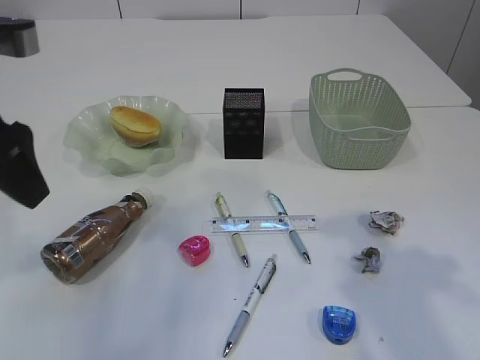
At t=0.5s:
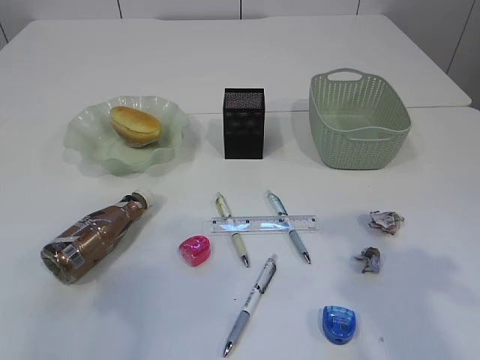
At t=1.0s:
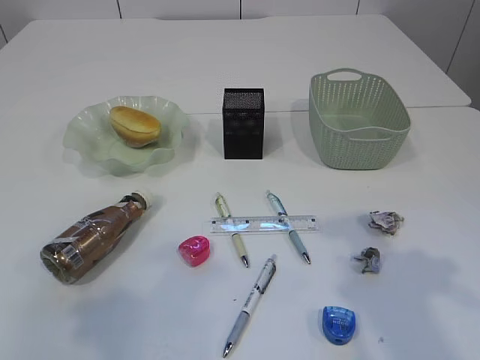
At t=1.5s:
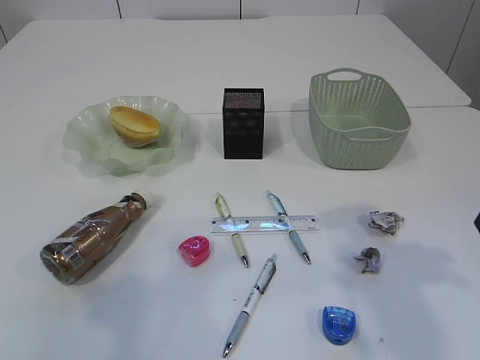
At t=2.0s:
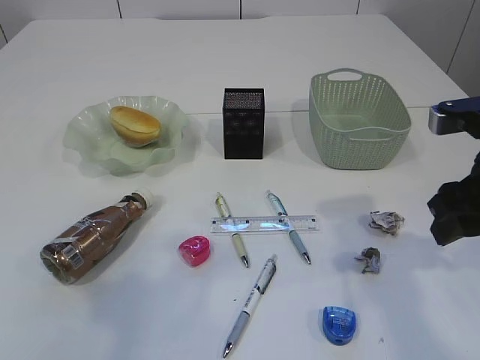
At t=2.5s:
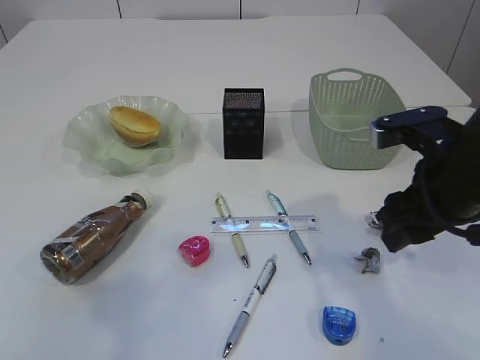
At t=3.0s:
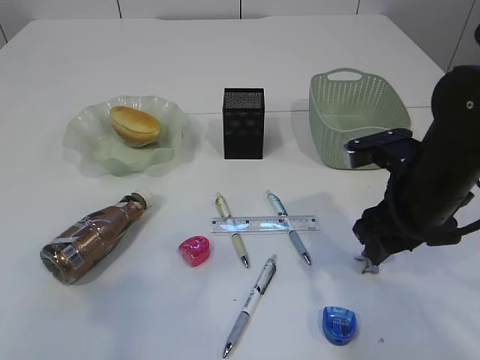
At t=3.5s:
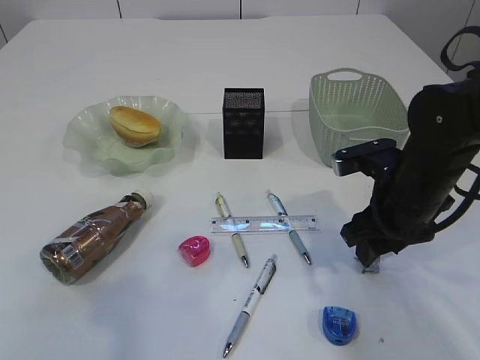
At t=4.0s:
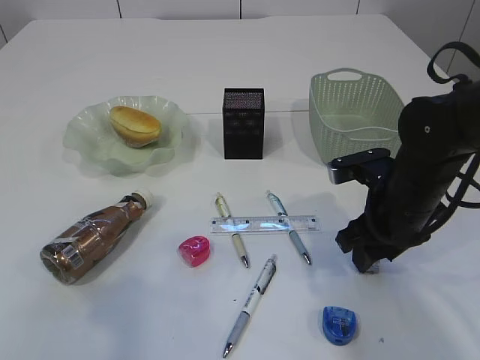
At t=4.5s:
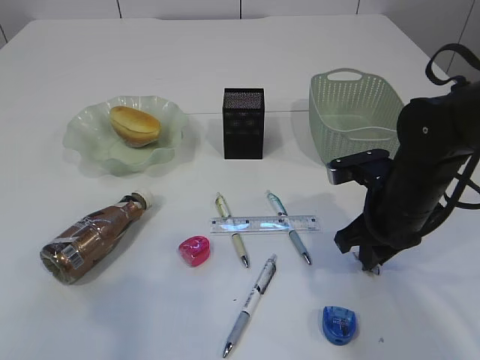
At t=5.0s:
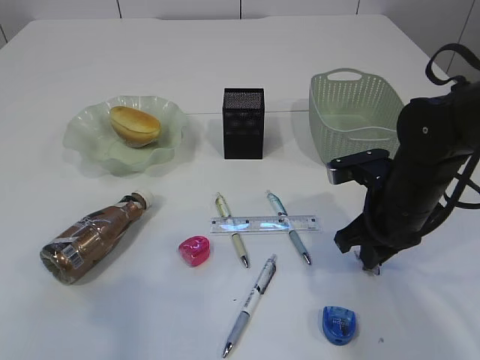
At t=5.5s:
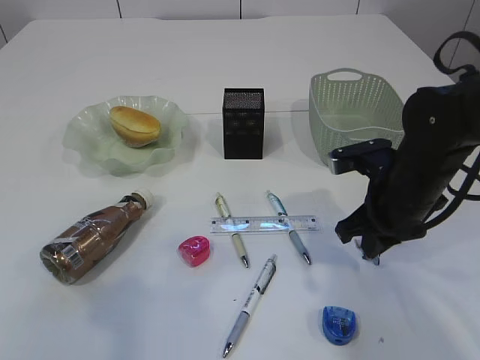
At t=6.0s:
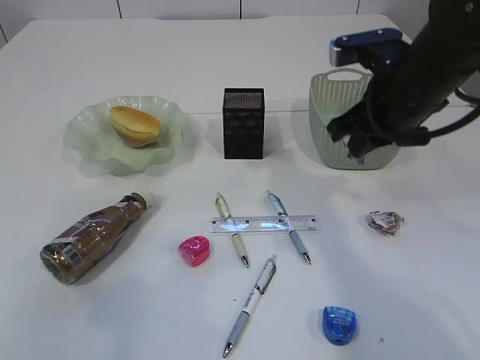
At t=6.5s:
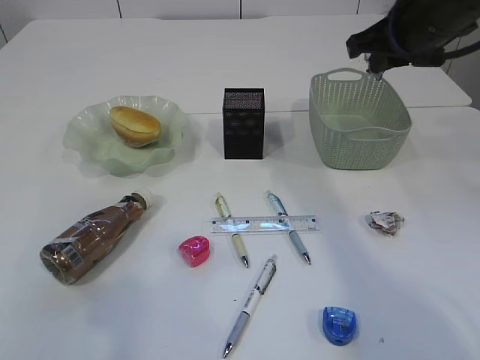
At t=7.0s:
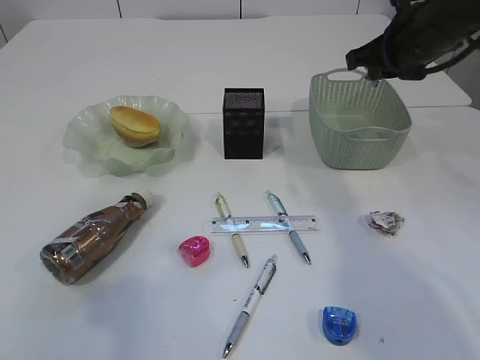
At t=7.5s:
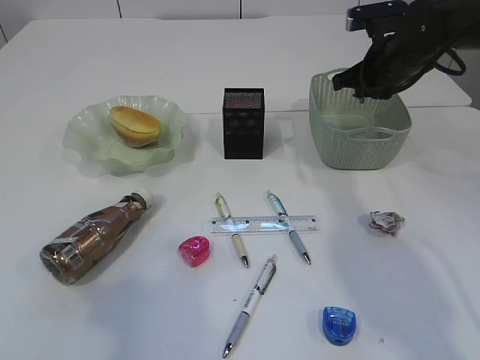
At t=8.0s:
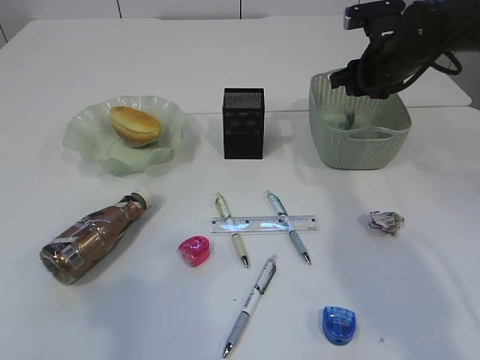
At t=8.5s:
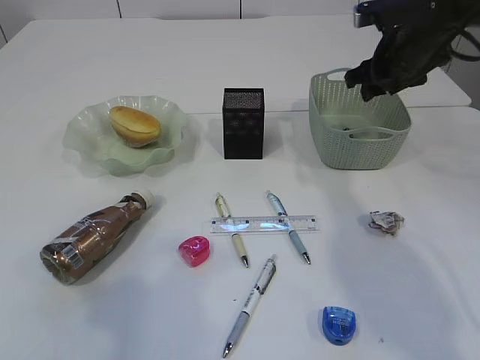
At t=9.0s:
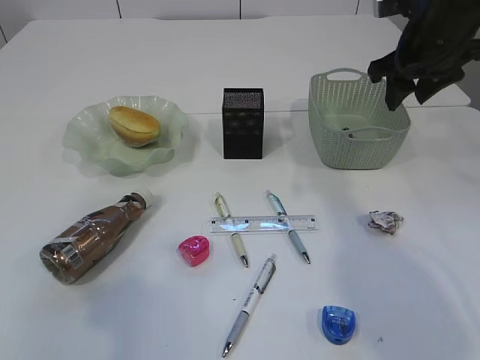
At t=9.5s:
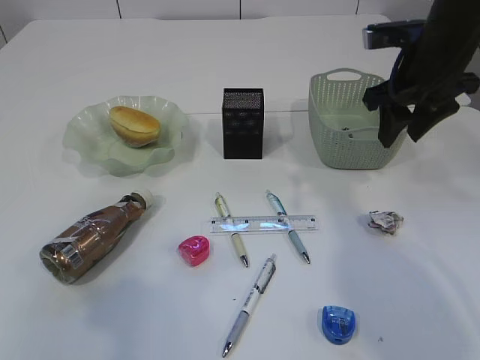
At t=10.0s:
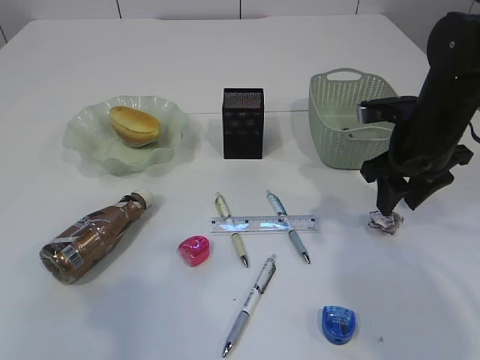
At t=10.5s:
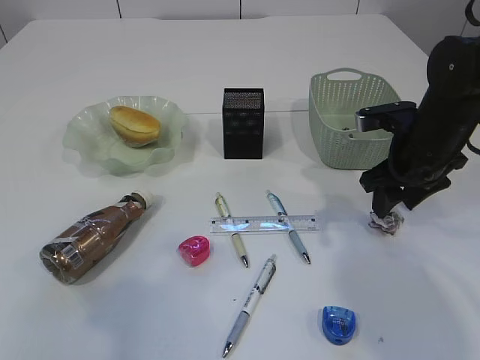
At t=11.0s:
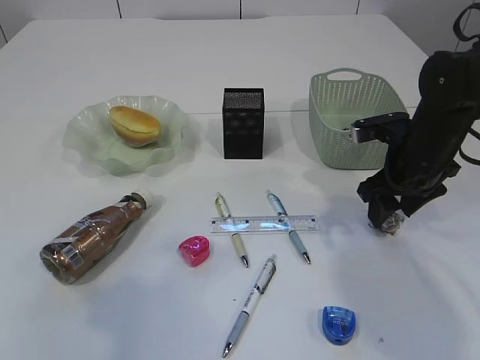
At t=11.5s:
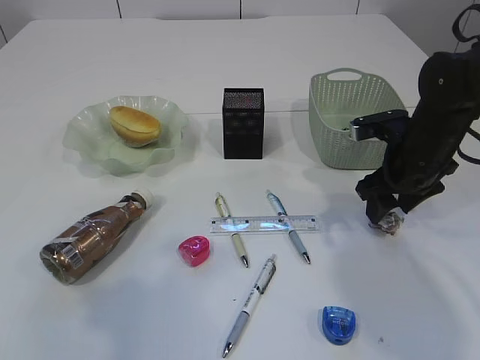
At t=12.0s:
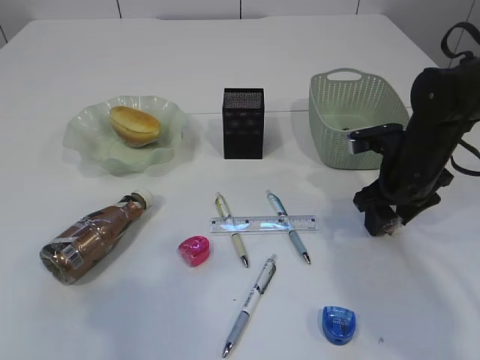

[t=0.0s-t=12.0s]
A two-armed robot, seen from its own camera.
Step, t=0.0s to t=5.5s: Pick up the waste paper.
Step, t=6.0s to t=9.0s: Place the waste paper in the basket.
t=0.0s to t=2.0s: The right gripper goes roughly 10 cm downward and forward; the left gripper travels backward by about 15 cm.
t=2.0s to t=4.0s: The right gripper travels downward, forward and to the left by approximately 15 cm.
t=4.0s to t=6.0s: The right gripper shifts about 10 cm upward, and closes.
t=6.0s to t=8.0s: The right gripper heads forward and to the right, covering about 15 cm, and opens up.
t=8.0s to t=10.0s: The right gripper is displaced backward by about 10 cm.
t=10.0s to t=12.0s: The right gripper travels downward by some 5 cm.

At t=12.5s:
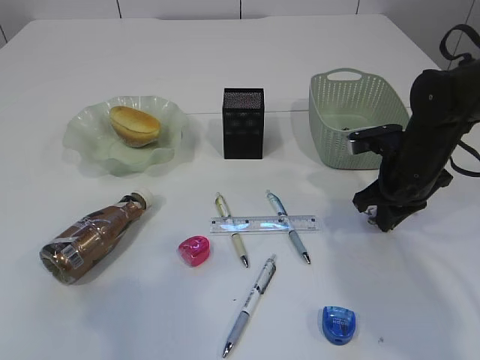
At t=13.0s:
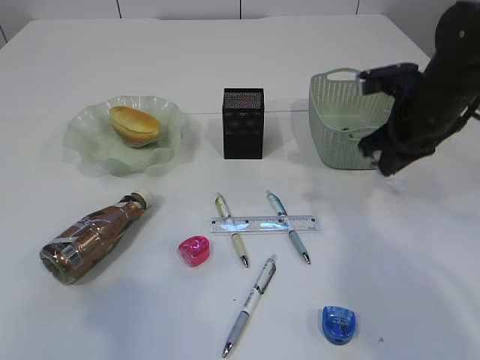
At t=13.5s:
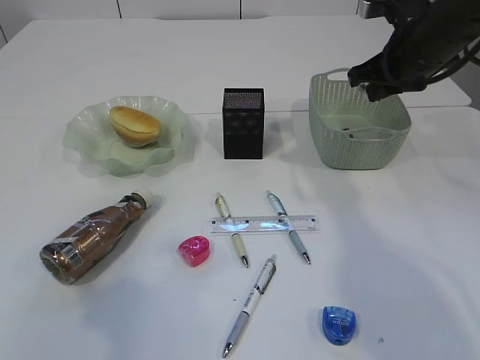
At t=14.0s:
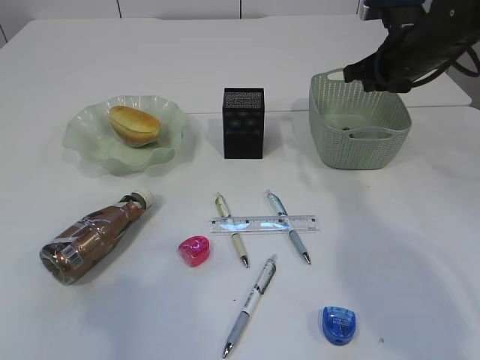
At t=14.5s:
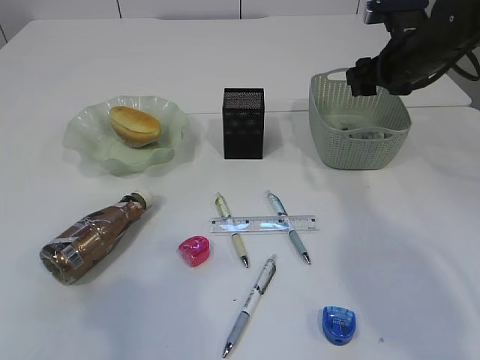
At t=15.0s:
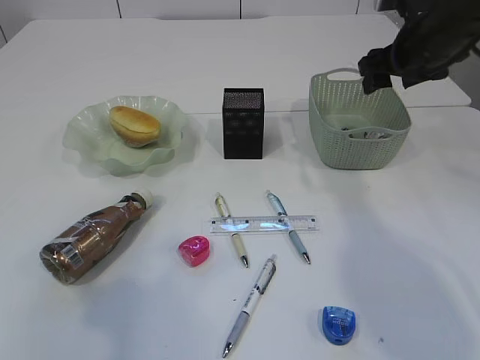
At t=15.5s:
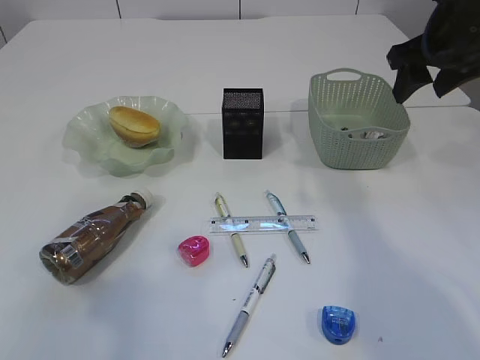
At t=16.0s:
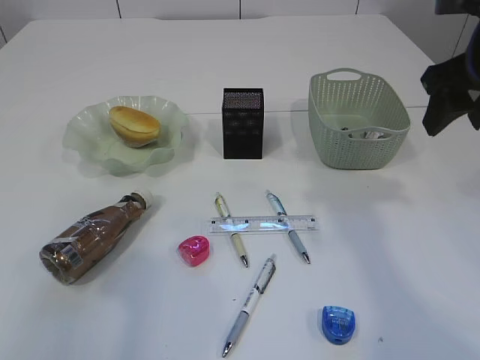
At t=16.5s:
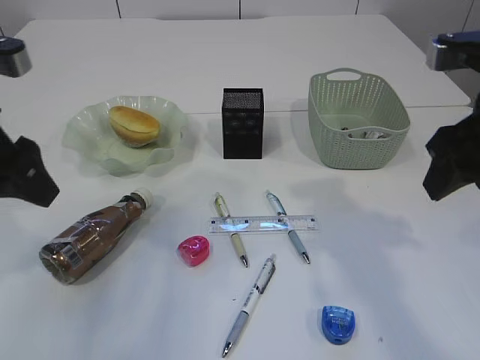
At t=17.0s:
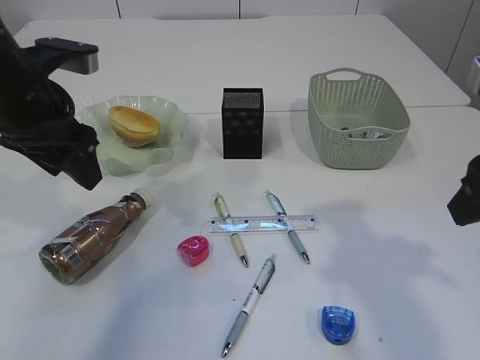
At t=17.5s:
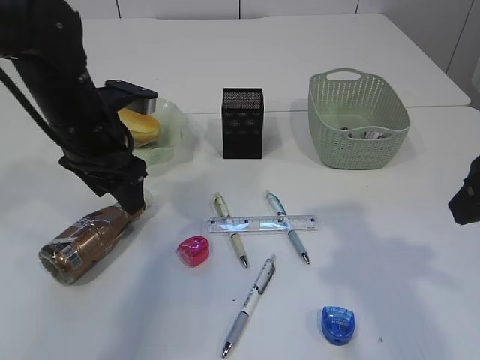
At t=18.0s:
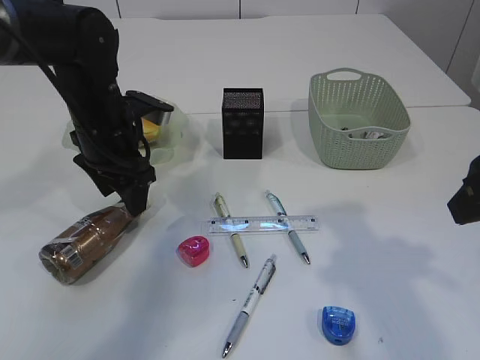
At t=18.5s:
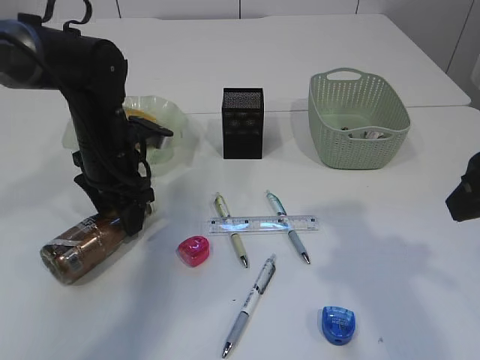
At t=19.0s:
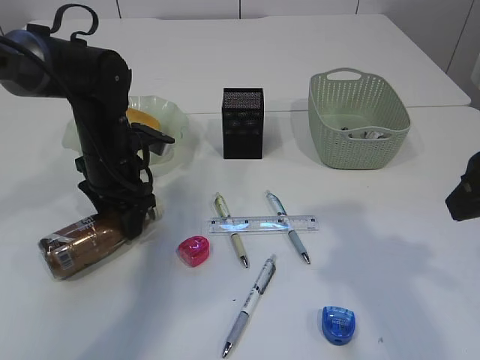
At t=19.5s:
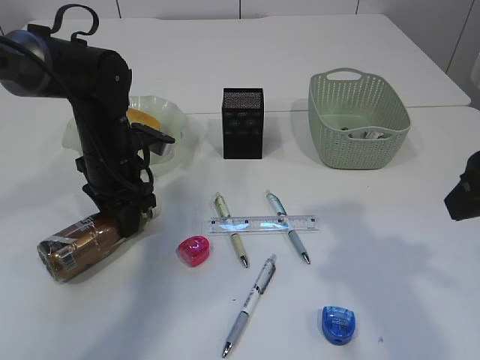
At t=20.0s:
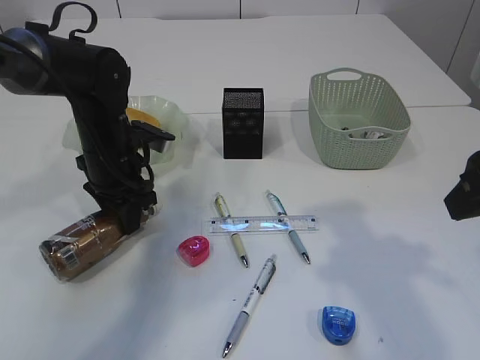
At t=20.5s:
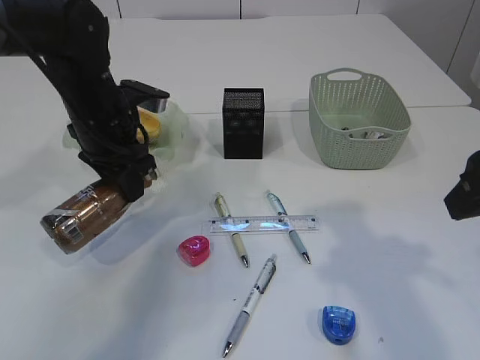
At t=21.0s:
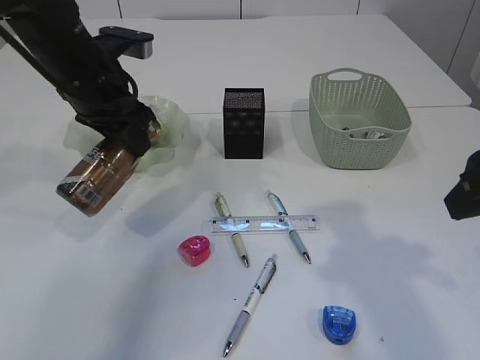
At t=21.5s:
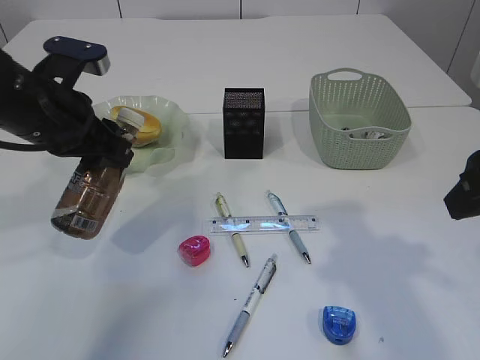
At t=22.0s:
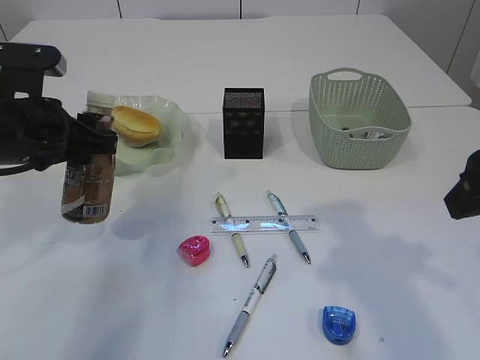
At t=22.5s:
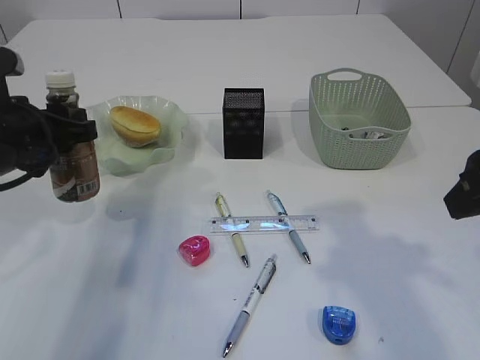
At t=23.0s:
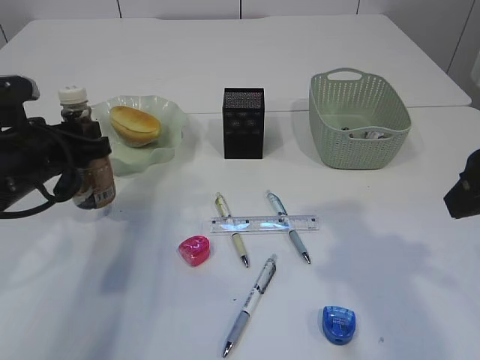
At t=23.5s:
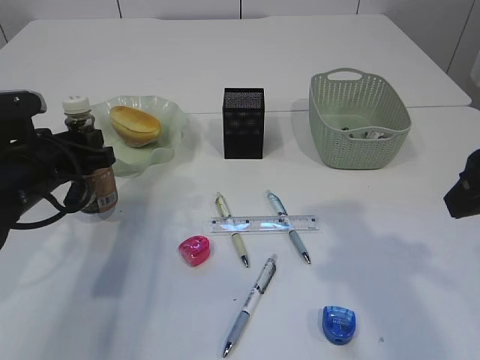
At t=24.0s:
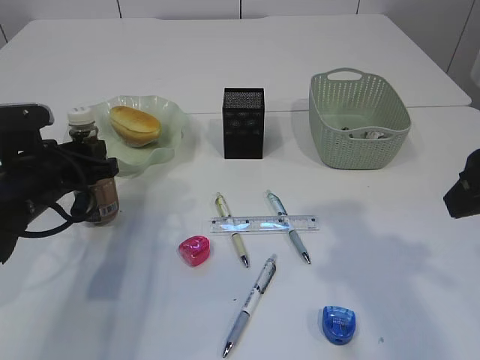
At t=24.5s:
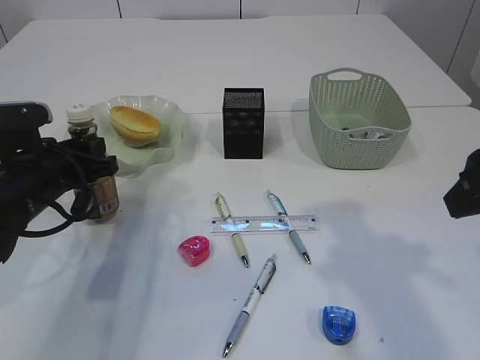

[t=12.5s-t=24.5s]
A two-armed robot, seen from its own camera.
Step, t=13.5s to t=15.0s: Place the waste paper in the basket.
Step, t=15.5s to t=20.5s: Pick up the bottle with the left arm.
t=12.5s to t=14.5s: The right gripper moves upward and forward, some 15 cm, and opens up.
t=14.5s to t=16.5s: The right gripper heads backward, covering approximately 20 cm. Meanwhile the left gripper travels forward by some 15 cm.
t=16.5s to t=18.5s: The left gripper moves forward, downward and to the right, some 20 cm, while the right gripper changes place by about 5 cm.
t=18.5s to t=20.5s: The left gripper moves upward, approximately 5 cm, and closes its fingers.
t=20.5s to t=22.5s: The left gripper shifts some 10 cm backward and to the left.
t=22.5s to t=24.5s: The left gripper moves downward, about 5 cm.

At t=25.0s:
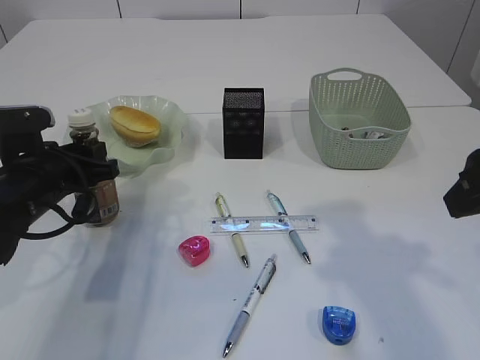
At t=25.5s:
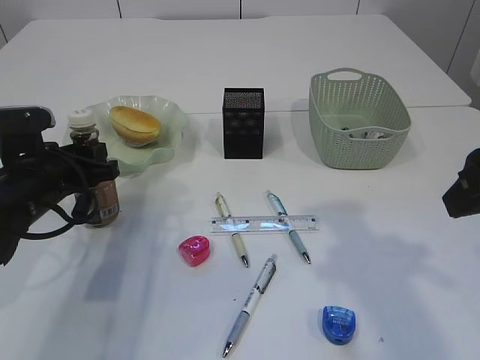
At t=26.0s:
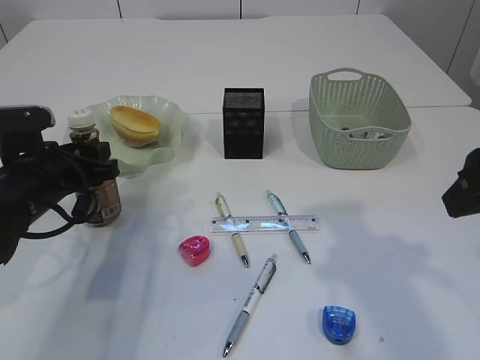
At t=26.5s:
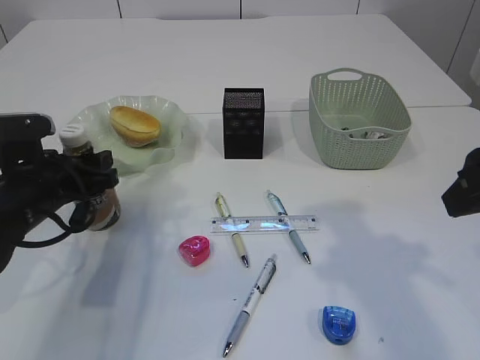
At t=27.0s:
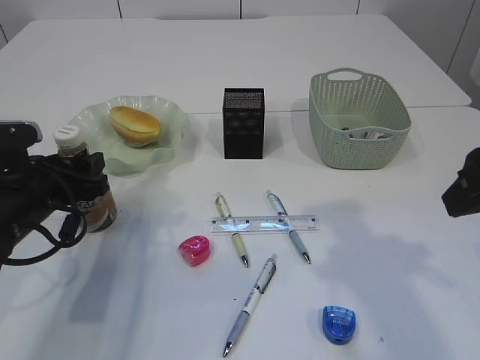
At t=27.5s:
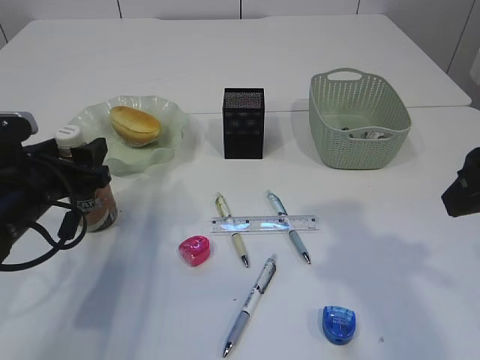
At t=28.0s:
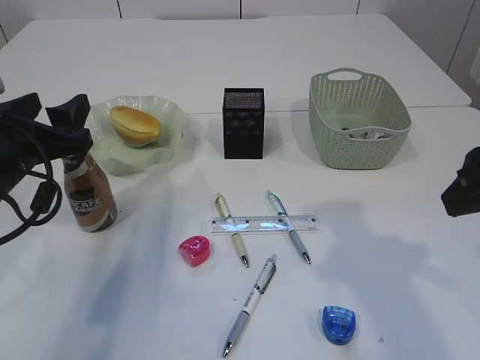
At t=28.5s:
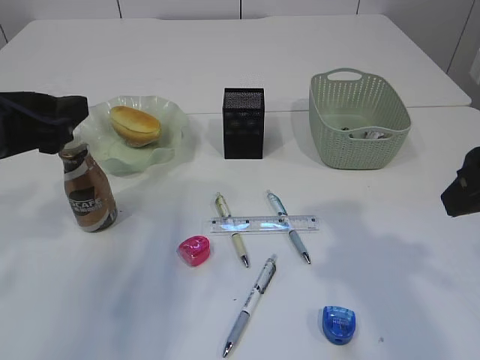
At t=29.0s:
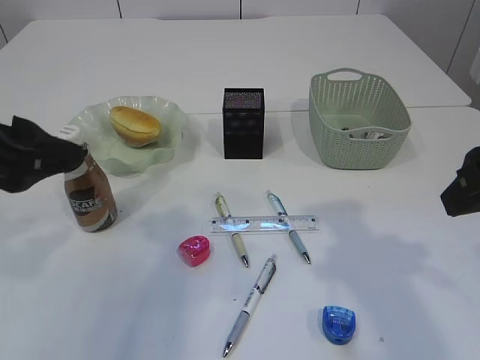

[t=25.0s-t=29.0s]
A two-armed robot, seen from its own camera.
t=25.0s to t=27.0s: The left gripper opens.
t=27.0s to t=29.0s: The left gripper is displaced upward and backward by approximately 20 cm.
